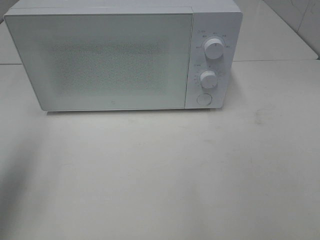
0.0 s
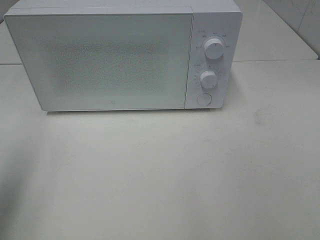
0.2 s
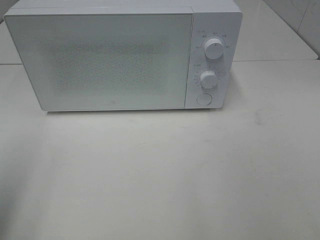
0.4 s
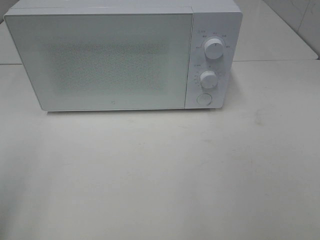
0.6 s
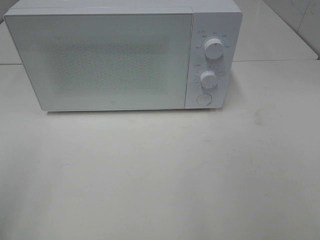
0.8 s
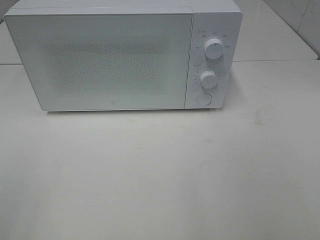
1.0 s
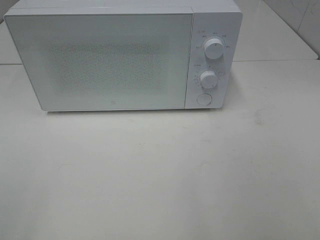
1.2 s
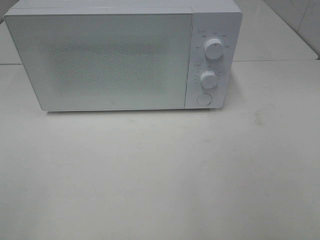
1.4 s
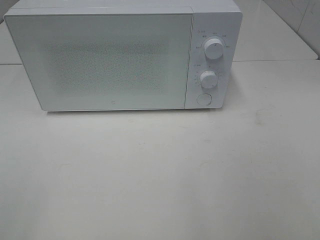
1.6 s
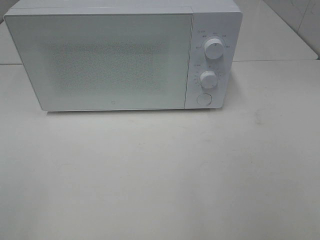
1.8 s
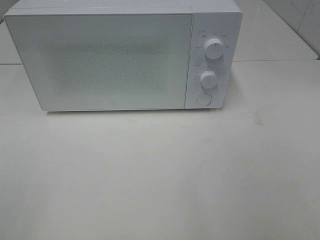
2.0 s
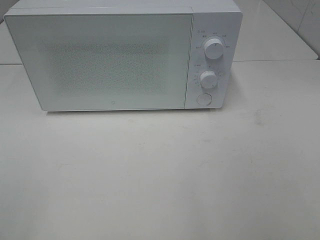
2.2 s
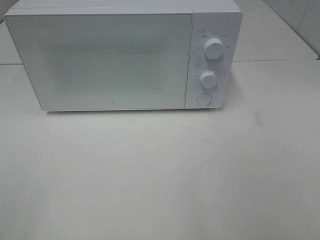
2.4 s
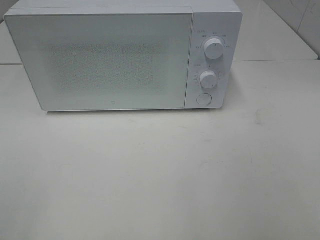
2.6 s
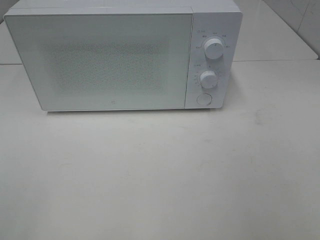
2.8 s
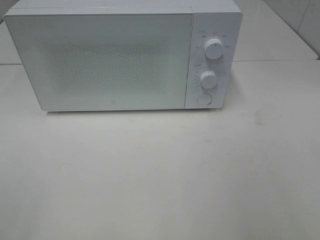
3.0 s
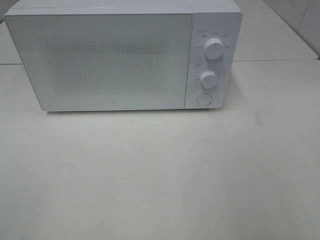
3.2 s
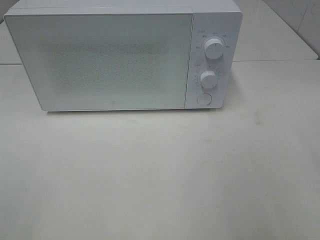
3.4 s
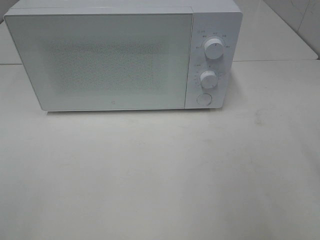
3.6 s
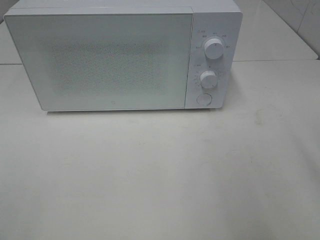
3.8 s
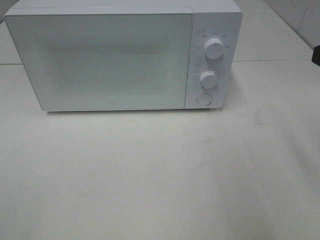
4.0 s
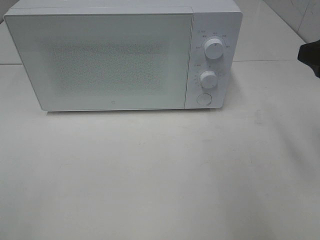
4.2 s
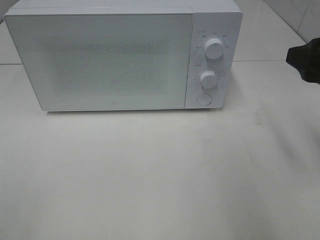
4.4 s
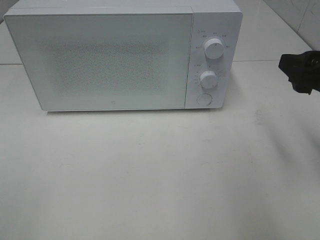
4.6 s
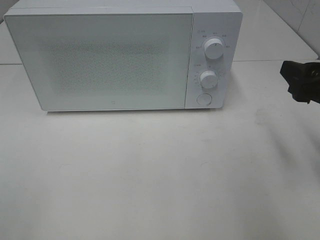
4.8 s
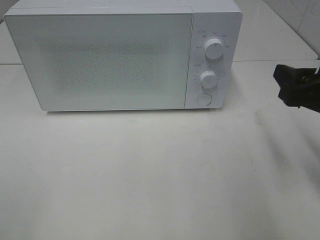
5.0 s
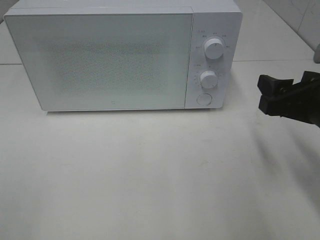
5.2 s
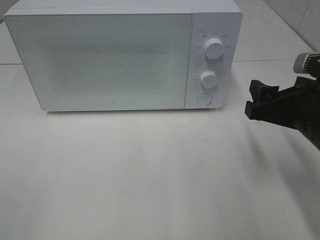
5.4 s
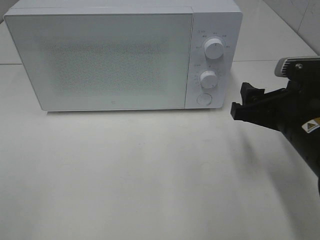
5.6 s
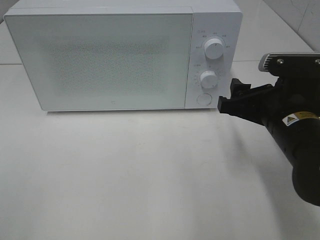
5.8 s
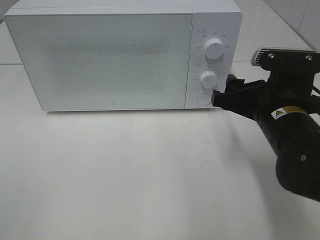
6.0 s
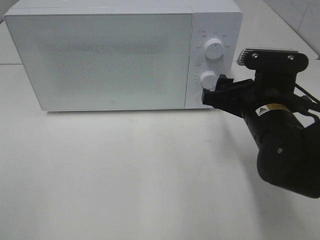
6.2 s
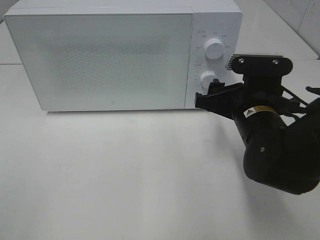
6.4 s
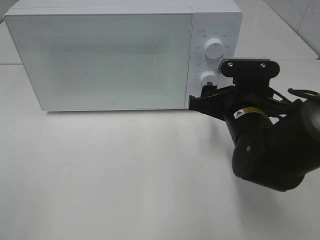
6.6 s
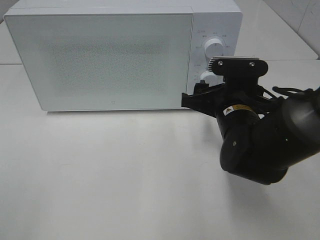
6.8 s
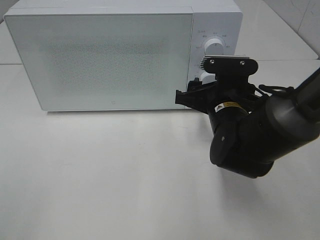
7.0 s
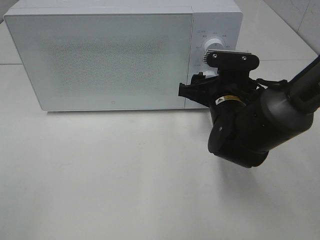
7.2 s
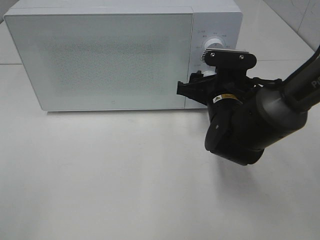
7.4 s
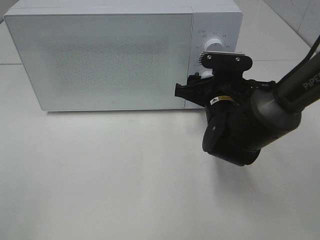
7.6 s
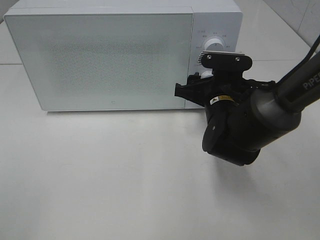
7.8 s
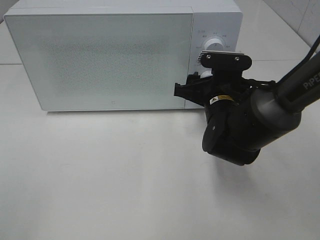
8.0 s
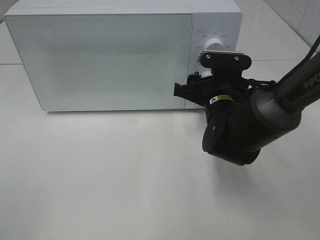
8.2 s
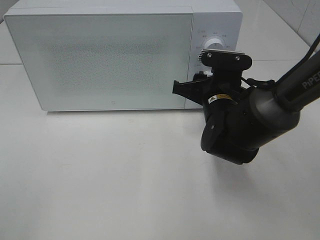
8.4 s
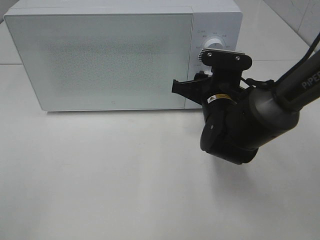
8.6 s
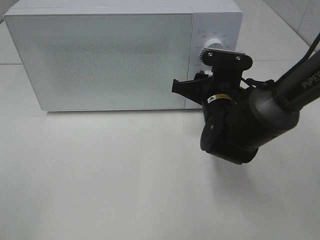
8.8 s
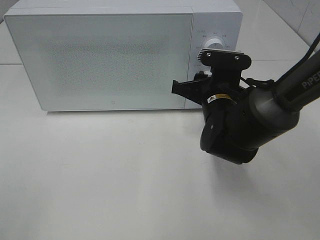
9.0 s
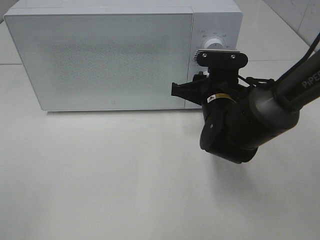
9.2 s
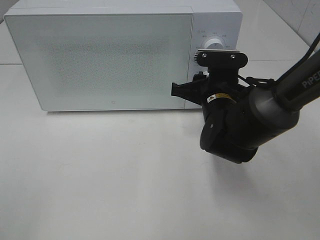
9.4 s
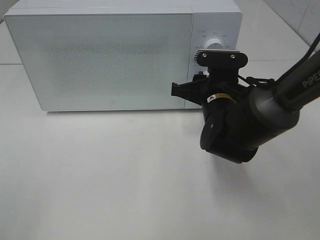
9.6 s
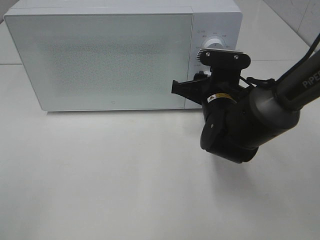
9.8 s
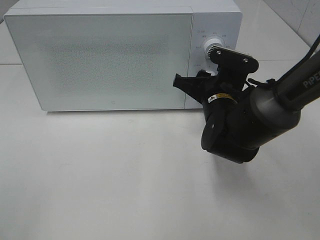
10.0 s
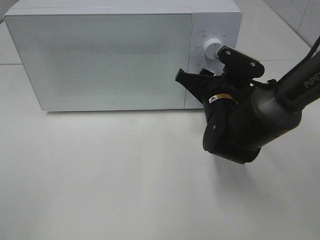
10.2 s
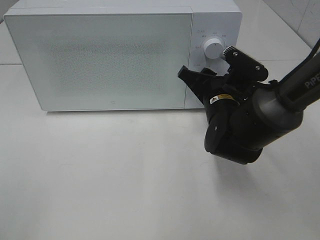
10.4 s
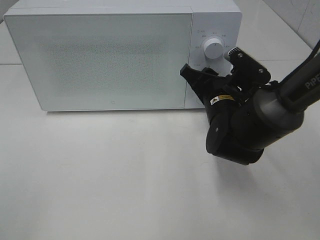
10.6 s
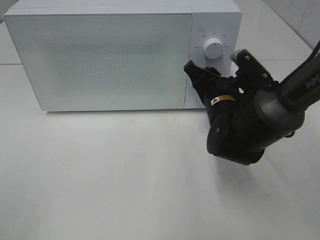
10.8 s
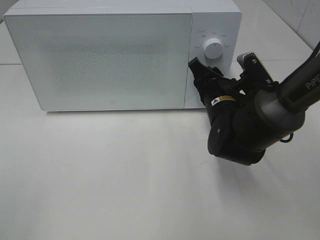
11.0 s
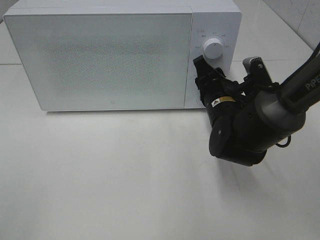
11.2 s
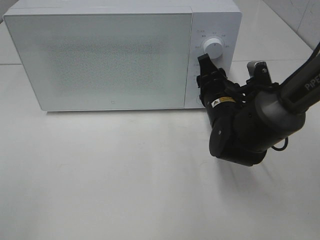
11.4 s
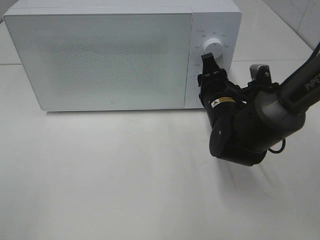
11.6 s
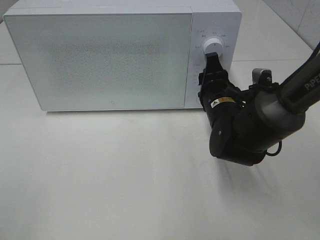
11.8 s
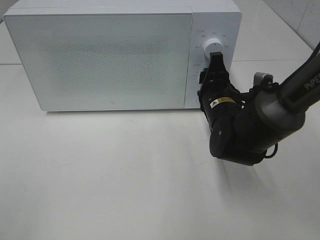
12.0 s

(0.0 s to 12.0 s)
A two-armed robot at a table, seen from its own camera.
Task of the whole recording: Heat the burger.
0.0 s - 1.6 s: The left gripper heads backward, covering approximately 20 cm.
3.0 s - 4.4 s: The right gripper moves forward, about 15 cm.
4.4 s - 6.0 s: The right gripper heads downward and to the left, covering approximately 15 cm.
6.0 s - 7.6 s: The right gripper moves forward, approximately 10 cm.
7.6 s - 9.0 s: The right gripper closes up.

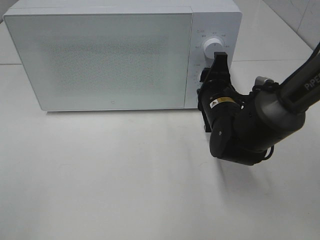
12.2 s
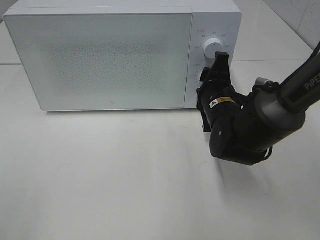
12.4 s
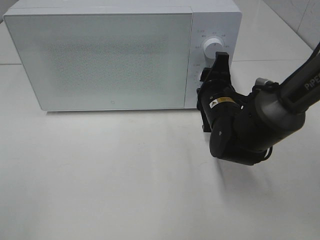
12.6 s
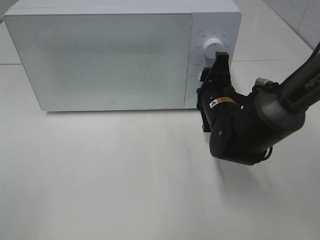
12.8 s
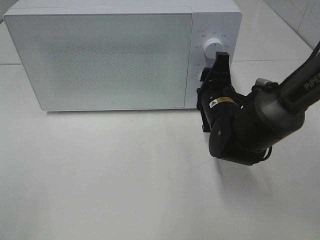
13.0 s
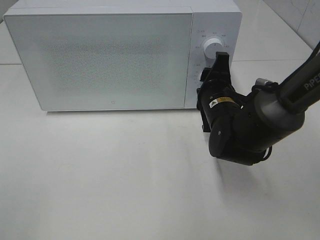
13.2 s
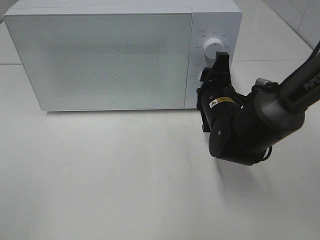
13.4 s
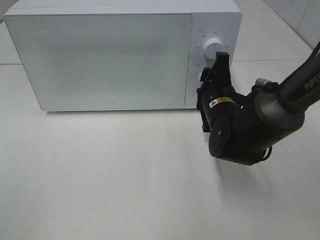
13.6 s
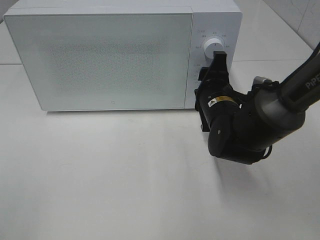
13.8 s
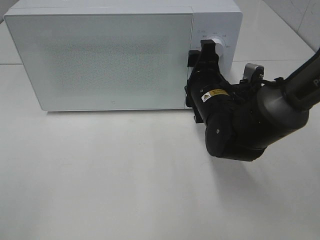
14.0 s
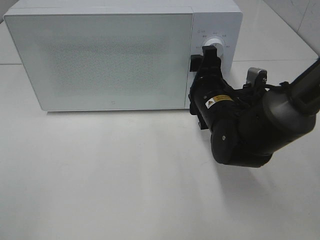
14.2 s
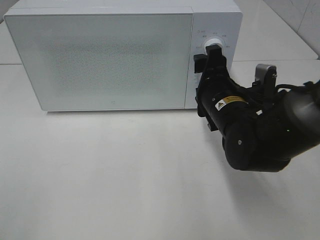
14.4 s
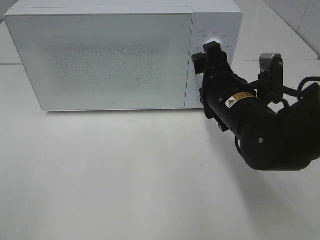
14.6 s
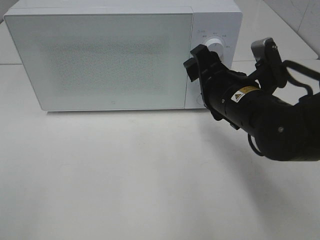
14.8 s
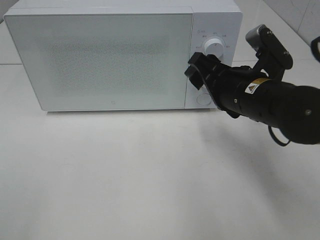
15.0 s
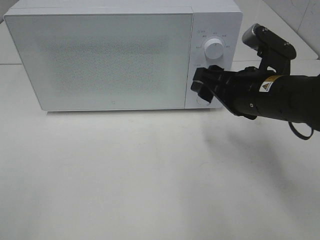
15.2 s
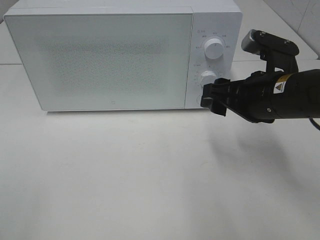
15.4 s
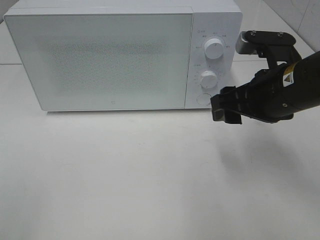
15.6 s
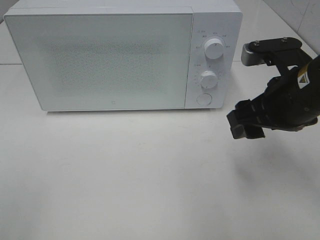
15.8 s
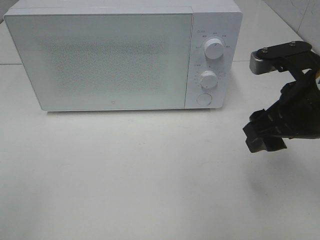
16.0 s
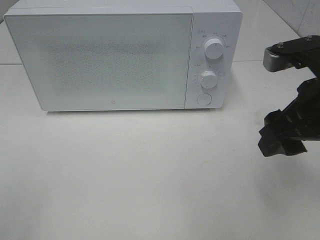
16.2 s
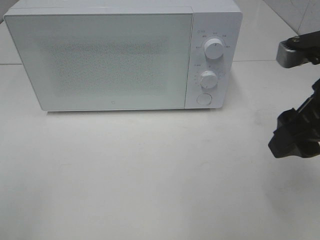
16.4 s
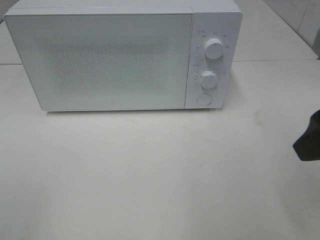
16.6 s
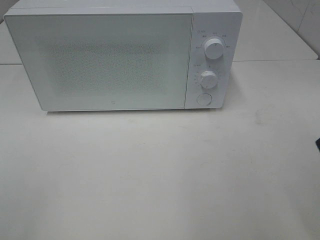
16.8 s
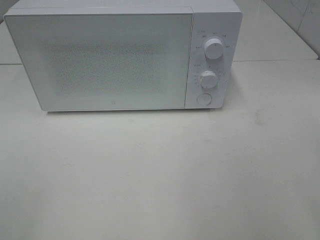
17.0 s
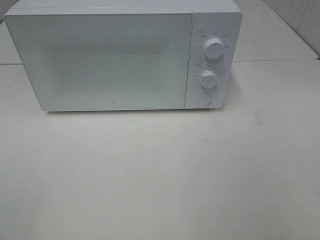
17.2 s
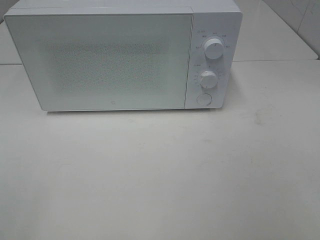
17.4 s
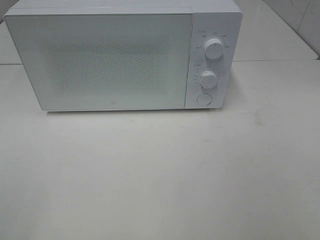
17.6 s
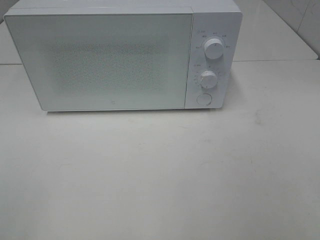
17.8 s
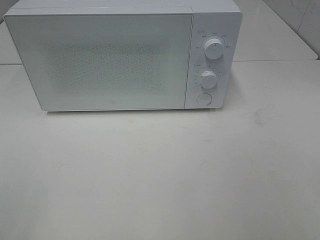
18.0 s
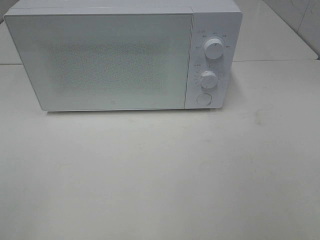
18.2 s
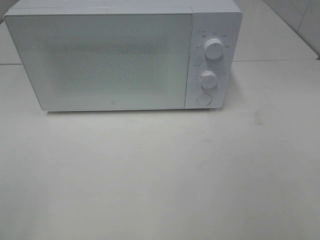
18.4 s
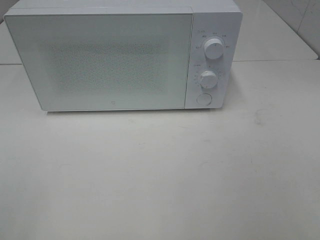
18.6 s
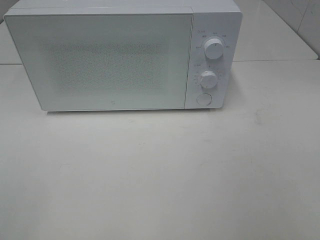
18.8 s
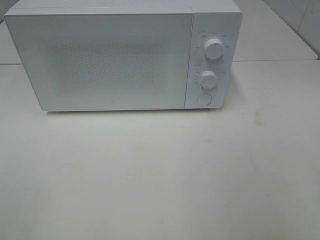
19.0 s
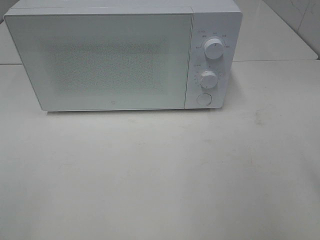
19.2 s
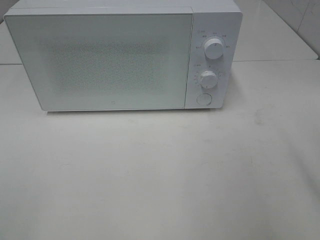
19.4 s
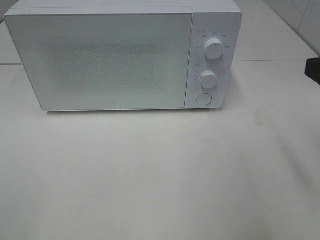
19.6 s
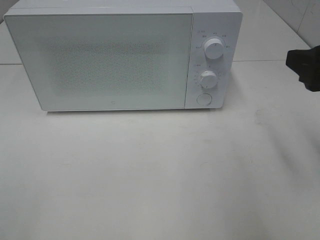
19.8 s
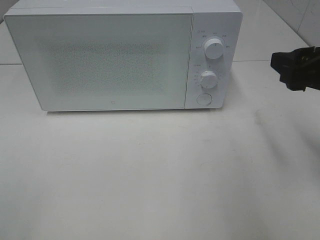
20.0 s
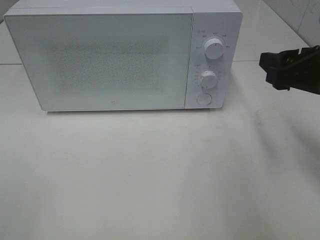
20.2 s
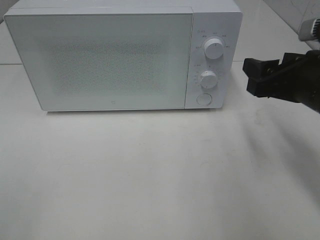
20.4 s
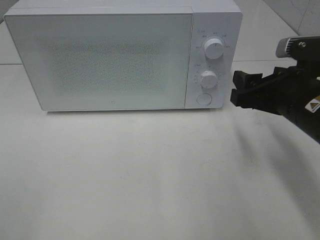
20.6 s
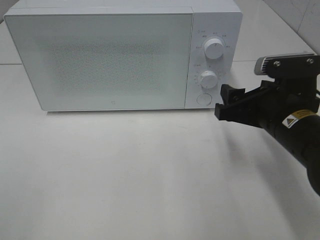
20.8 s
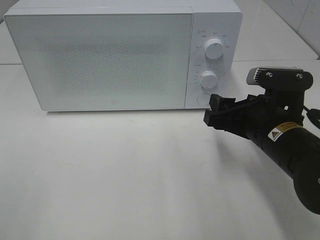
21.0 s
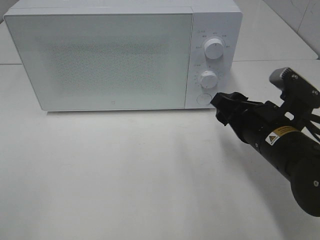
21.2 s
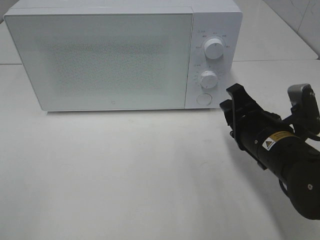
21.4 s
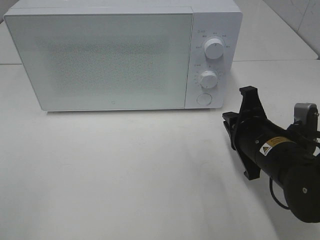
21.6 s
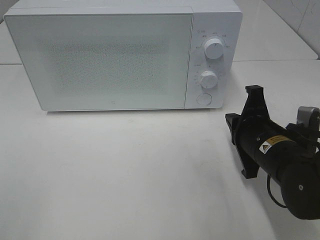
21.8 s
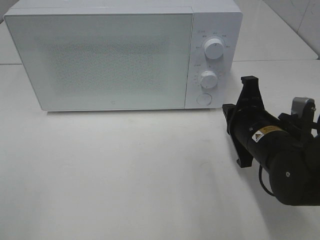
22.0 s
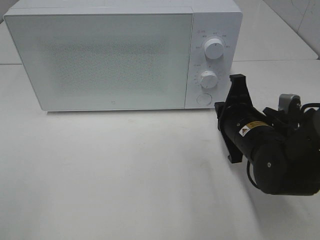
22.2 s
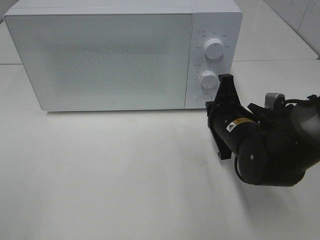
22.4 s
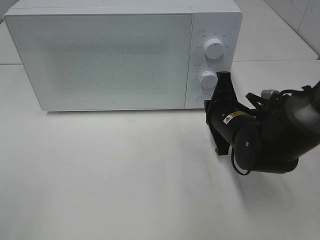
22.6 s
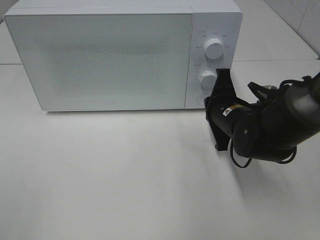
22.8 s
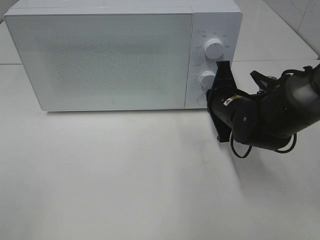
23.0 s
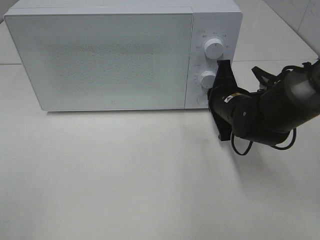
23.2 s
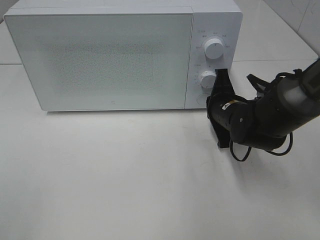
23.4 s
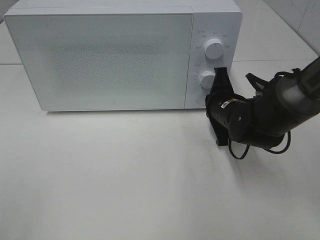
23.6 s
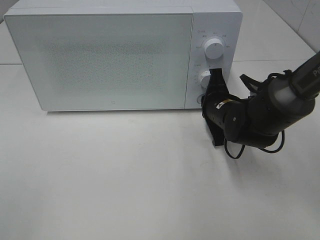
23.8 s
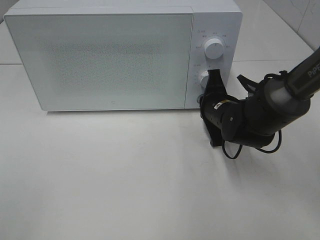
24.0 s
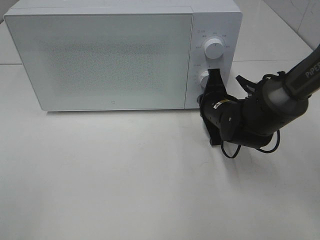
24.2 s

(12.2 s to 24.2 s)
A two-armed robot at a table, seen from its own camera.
Task of the whole recording: Heat the burger.
12.2 s - 13.8 s: Both grippers stay put.
13.8 s - 15.2 s: The right gripper shifts approximately 10 cm upward and backward.
15.2 s - 16.6 s: The right gripper goes about 15 cm backward, upward and to the right.
16.6 s - 18.2 s: The right gripper moves backward and to the right, approximately 15 cm.
18.2 s - 19.8 s: The right gripper heads forward, covering about 20 cm.
19.8 s - 21.2 s: The right gripper is displaced downward and to the left by some 15 cm.
21.2 s - 22.6 s: The right gripper goes about 5 cm forward, and closes.
22.6 s - 24.2 s: The right gripper is displaced forward by roughly 5 cm.
